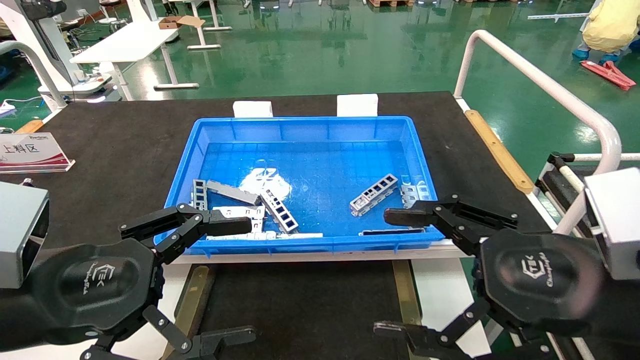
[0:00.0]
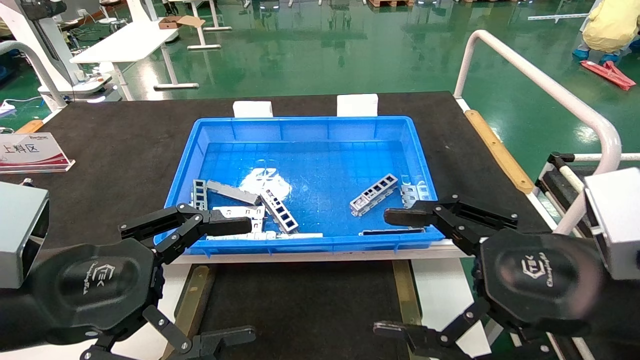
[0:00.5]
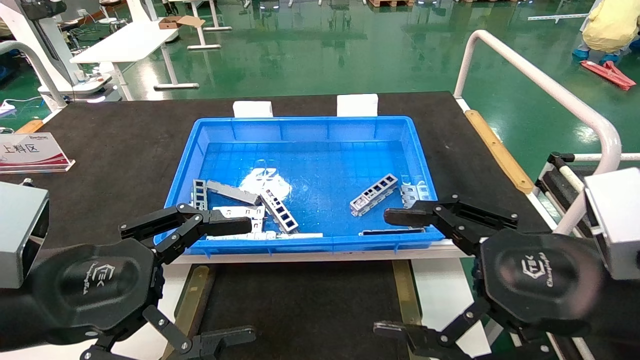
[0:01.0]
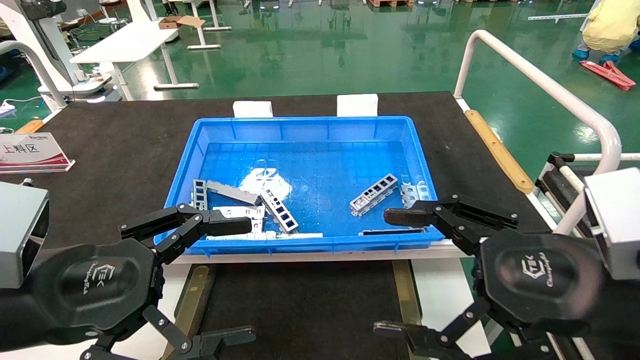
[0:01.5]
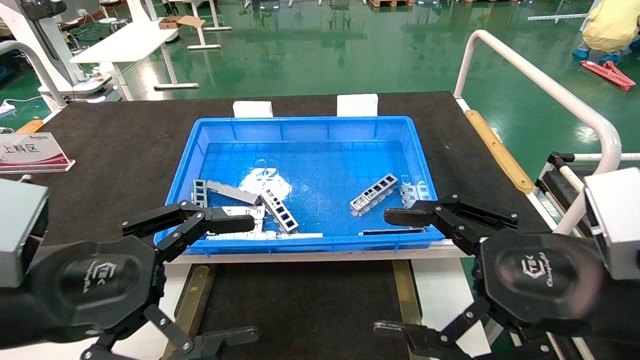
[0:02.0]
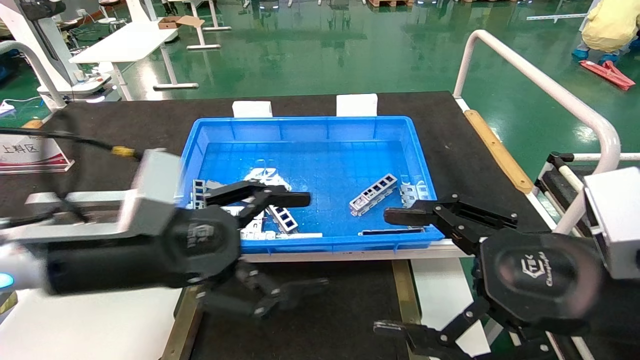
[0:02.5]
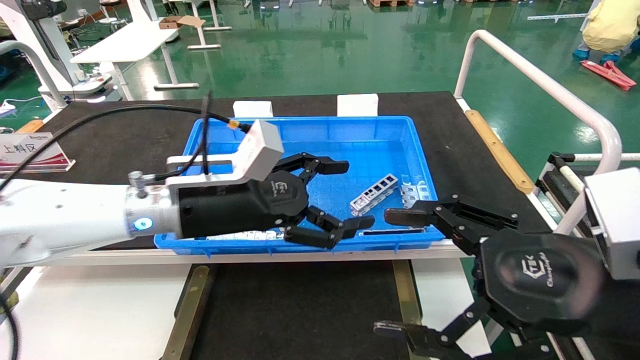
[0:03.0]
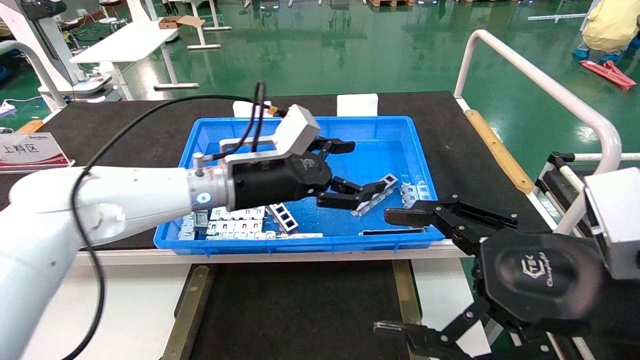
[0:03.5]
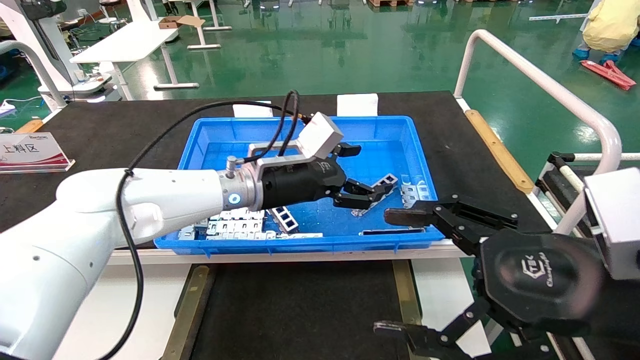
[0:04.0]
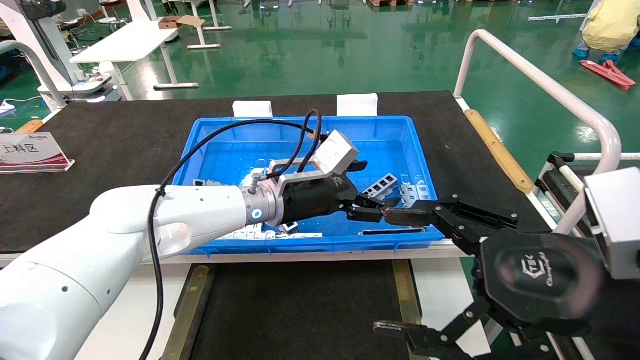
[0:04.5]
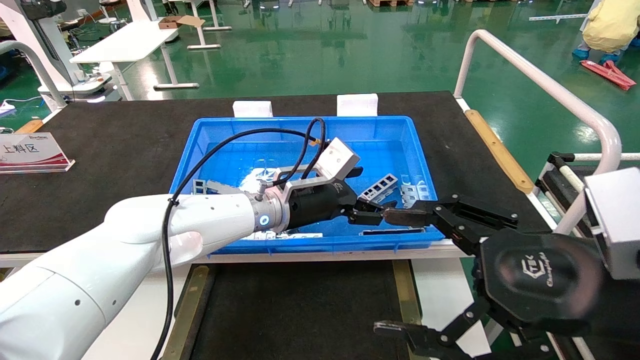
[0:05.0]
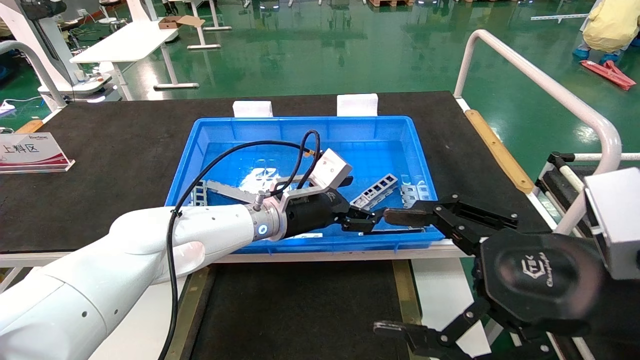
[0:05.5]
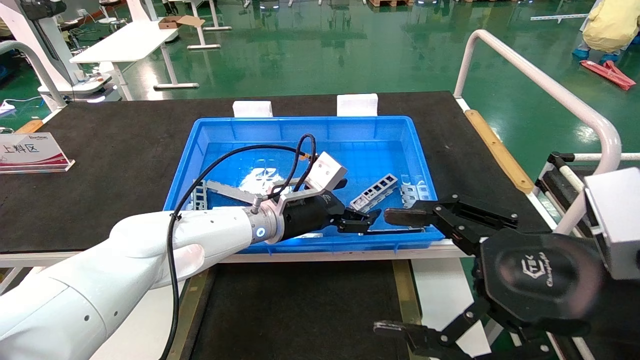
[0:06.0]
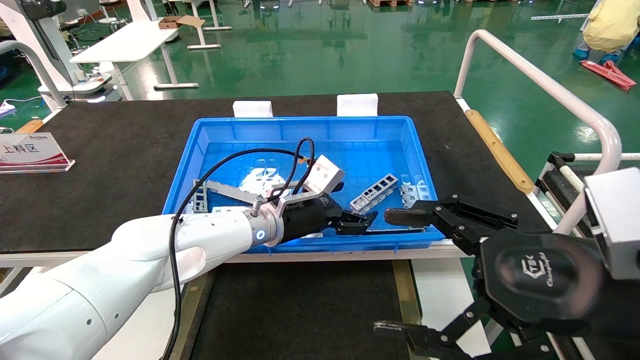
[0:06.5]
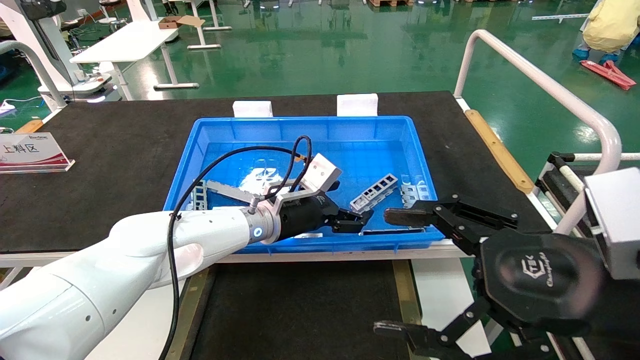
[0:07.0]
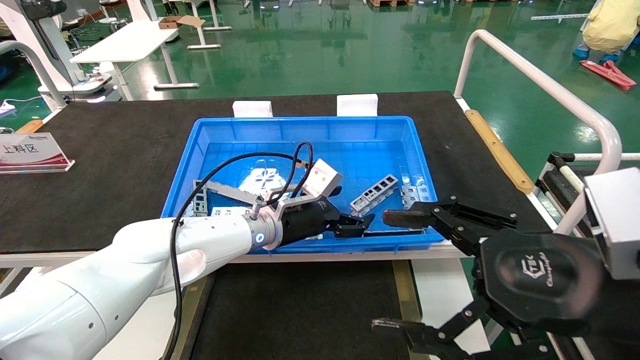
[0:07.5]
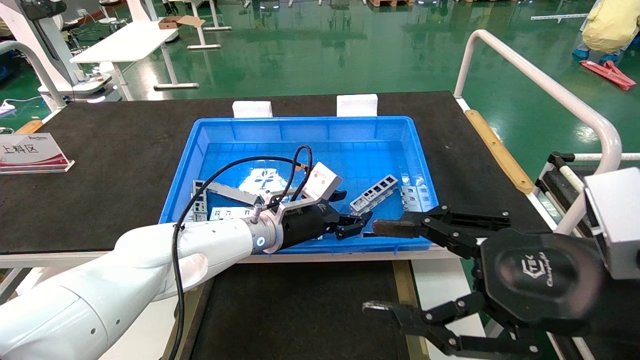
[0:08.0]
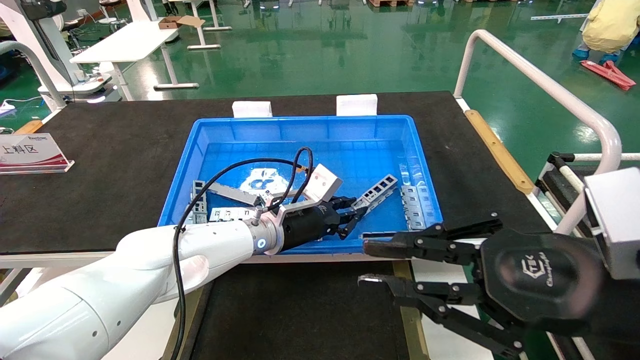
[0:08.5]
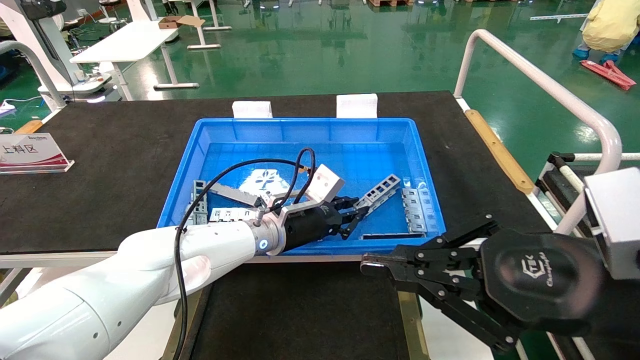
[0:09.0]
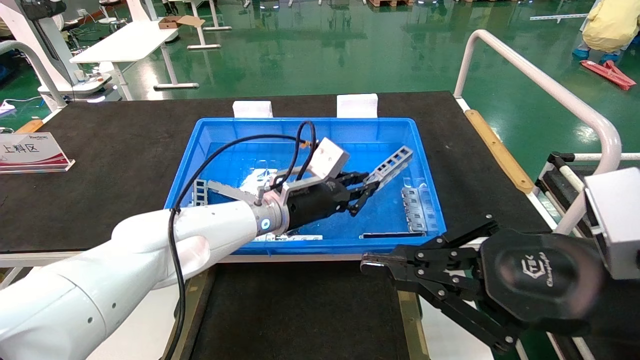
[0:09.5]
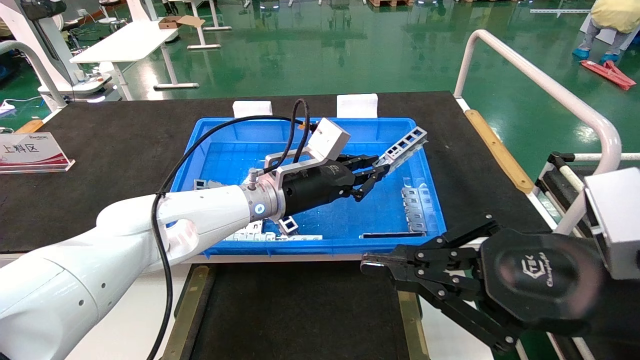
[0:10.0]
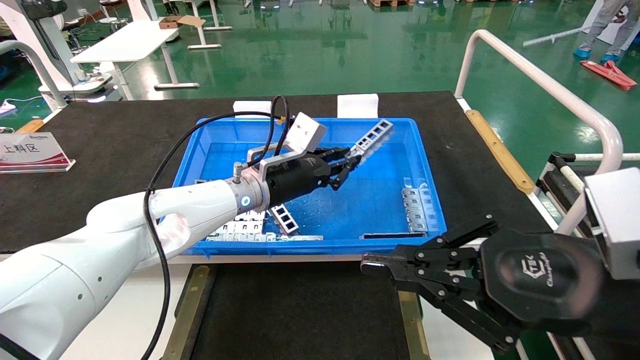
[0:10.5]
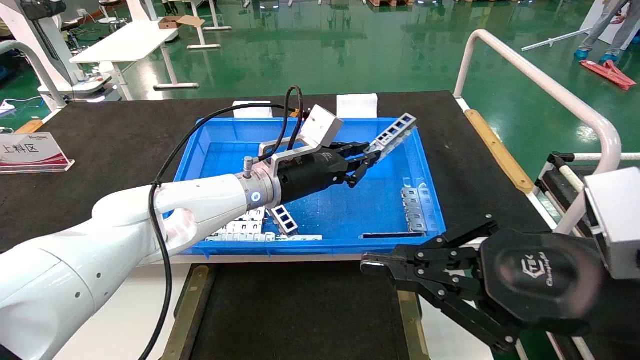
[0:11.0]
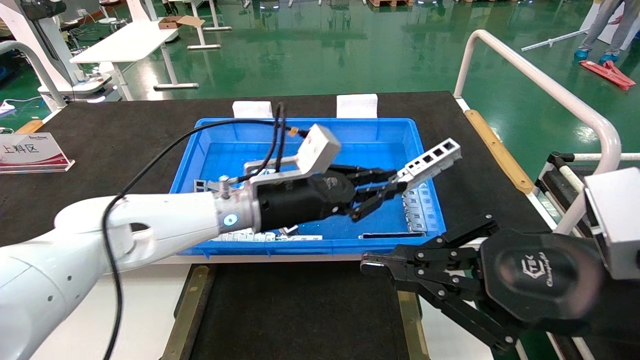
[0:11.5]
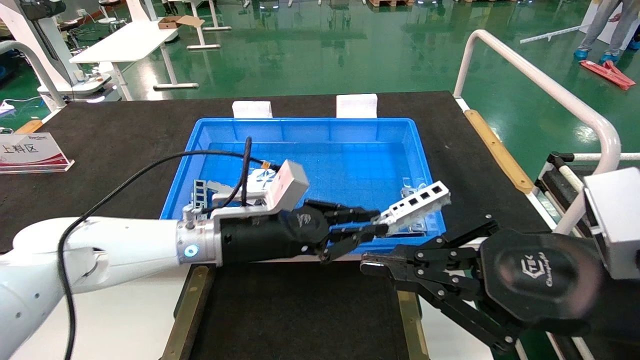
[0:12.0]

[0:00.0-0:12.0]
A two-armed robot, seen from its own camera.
Task of the whole recording: Grasp the part with one hand and place it on the black container.
Step, 0:02.0 to 0:08.5: Pick up the front USB bracket from the feeding area.
0:00.0 to 0:02.0: The two grippers keep their place.
0:02.0 to 0:04.0: The left gripper is displaced forward and to the right by about 30 cm.
0:04.0 to 0:06.0: The left gripper heads downward, covering about 5 cm.
0:06.0 to 0:08.0: There are only small adjustments of the grippers.
0:08.0 to 0:10.0: The left gripper shifts approximately 5 cm upward, and closes its fingers. The right gripper closes its fingers.
0:10.0 to 0:12.0: The left gripper is displaced backward and to the left by approximately 10 cm.

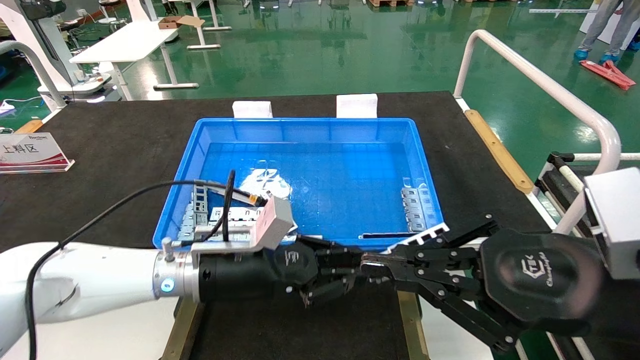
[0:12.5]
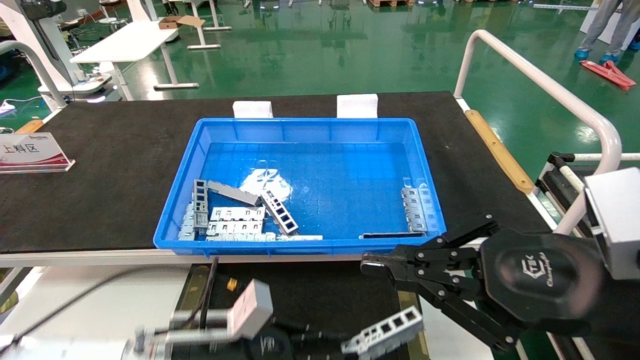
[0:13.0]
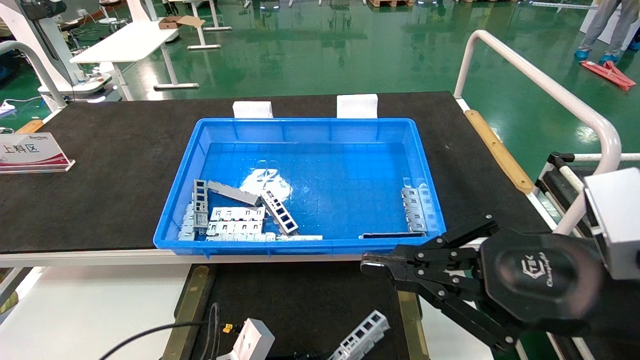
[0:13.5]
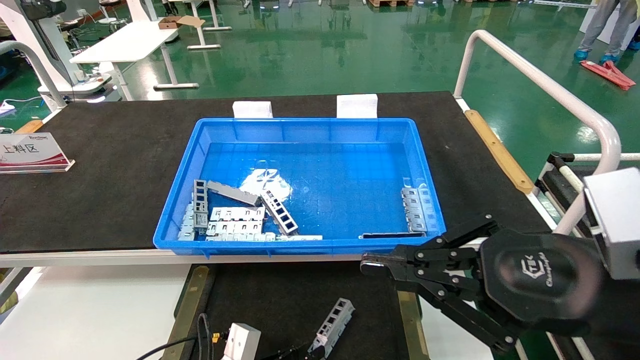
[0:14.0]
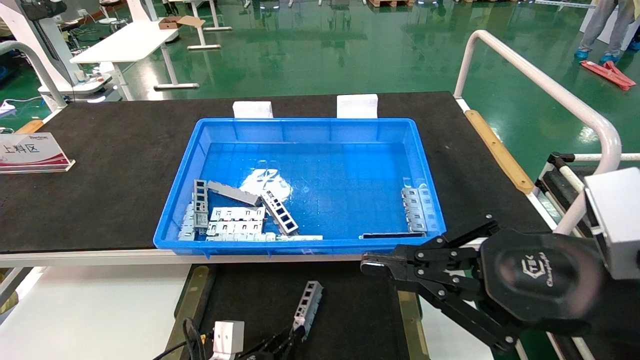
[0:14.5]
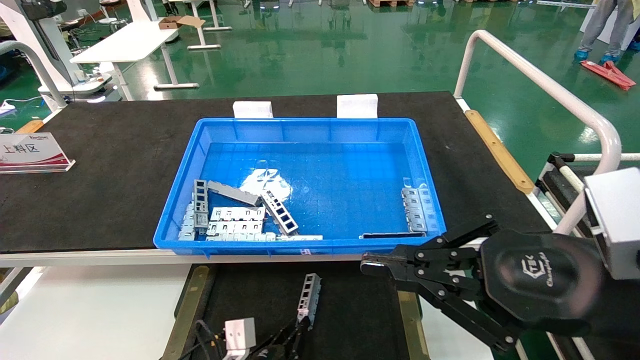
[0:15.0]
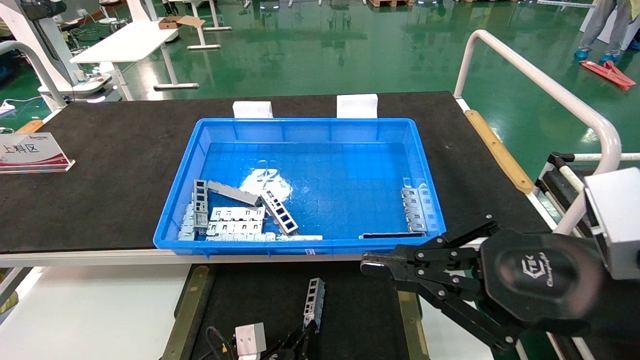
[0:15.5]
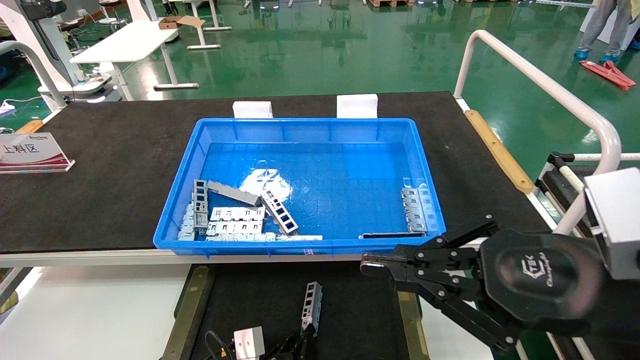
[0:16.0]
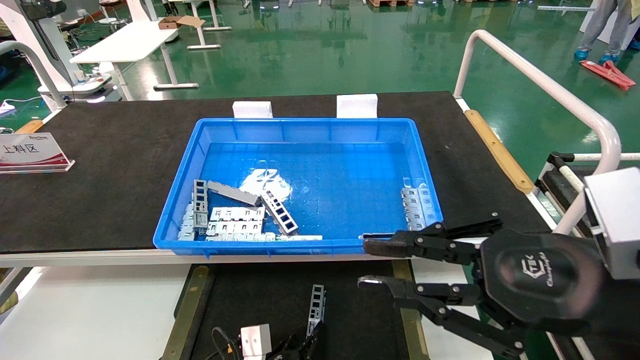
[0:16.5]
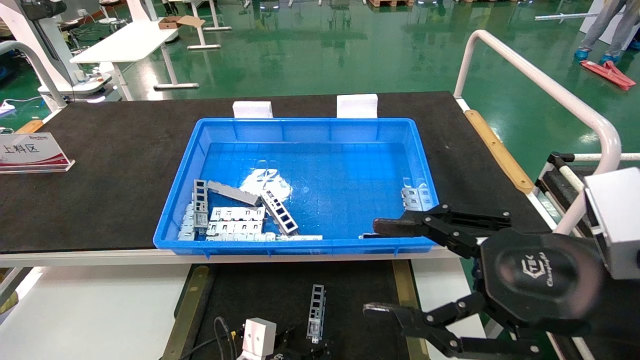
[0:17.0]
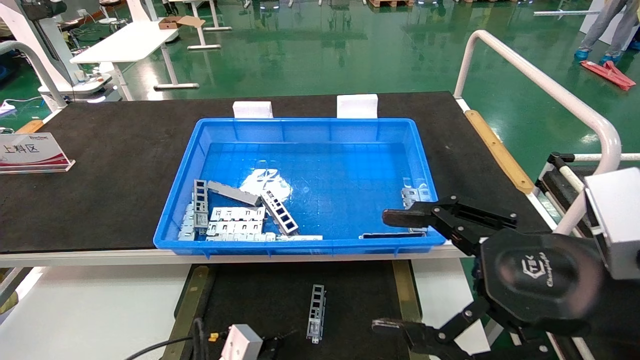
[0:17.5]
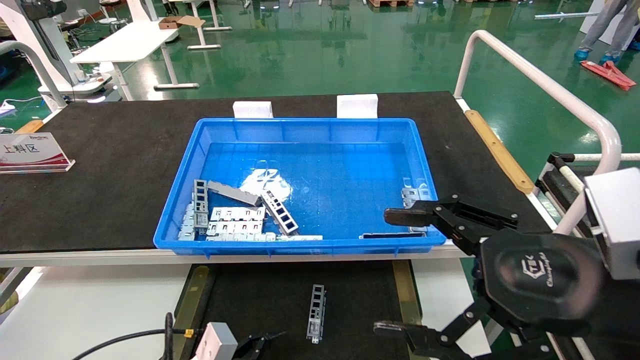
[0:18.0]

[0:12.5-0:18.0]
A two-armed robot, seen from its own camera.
Task of the whole recording: Grasp the part with one hand and place it on the black container.
Step, 0:12.5 to 0:16.0: Place the front USB bracket into the box.
0:12.5 to 0:14.5: The left gripper goes roughly 25 cm downward.
0:14.5 to 0:16.0: The left gripper changes place by roughly 5 cm.
0:16.0 to 0:18.0: The right gripper opens up. Meanwhile the left gripper goes approximately 15 cm upward, to the left and backward, and opens.

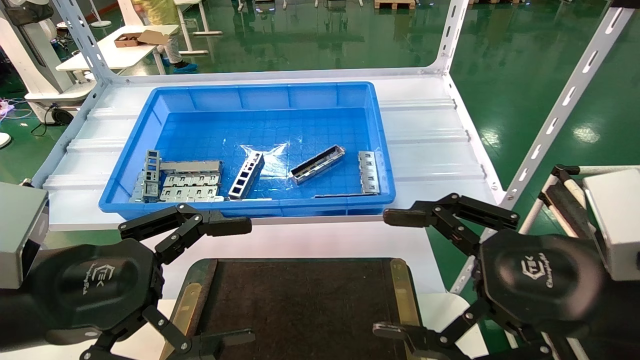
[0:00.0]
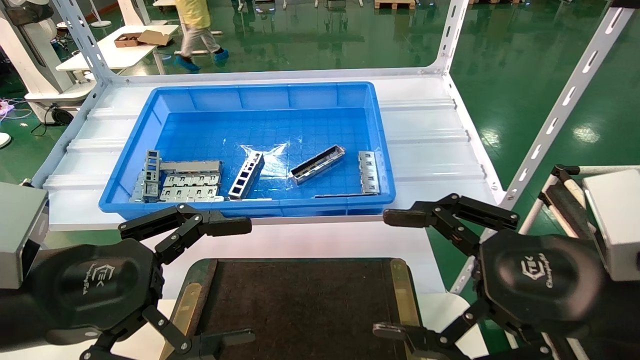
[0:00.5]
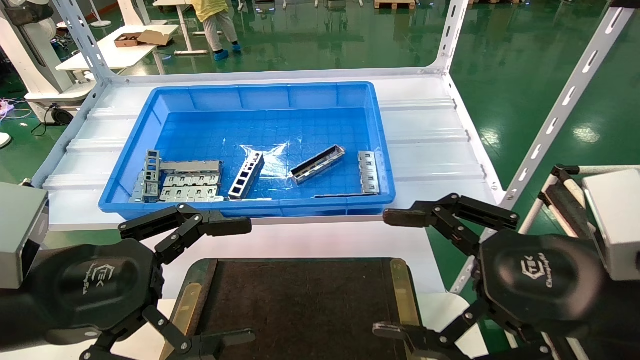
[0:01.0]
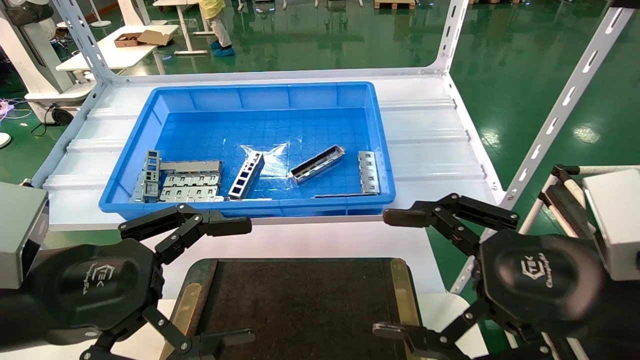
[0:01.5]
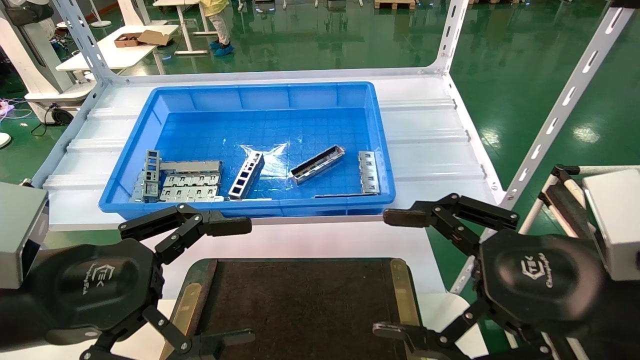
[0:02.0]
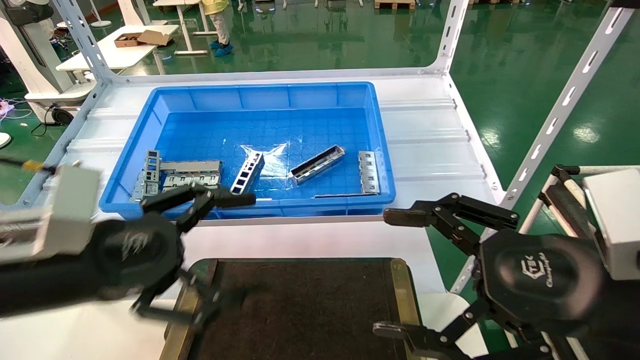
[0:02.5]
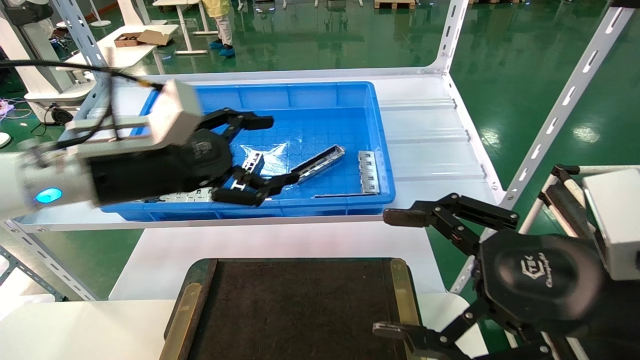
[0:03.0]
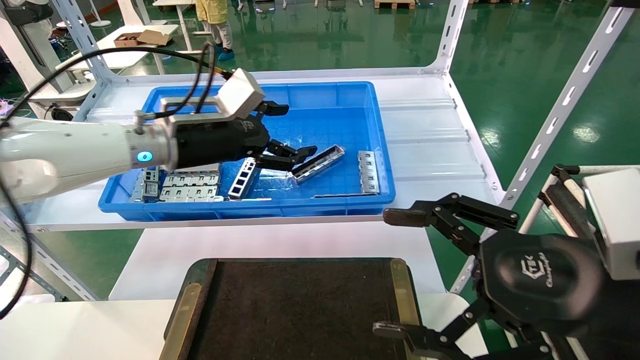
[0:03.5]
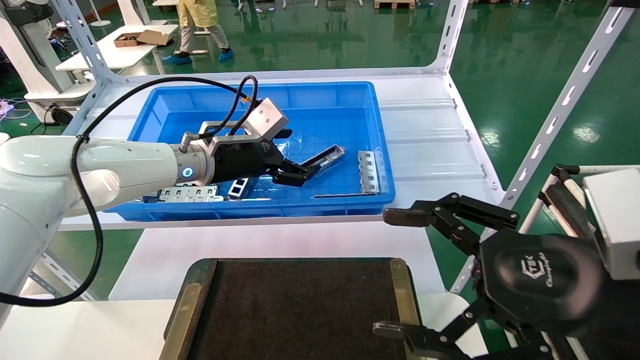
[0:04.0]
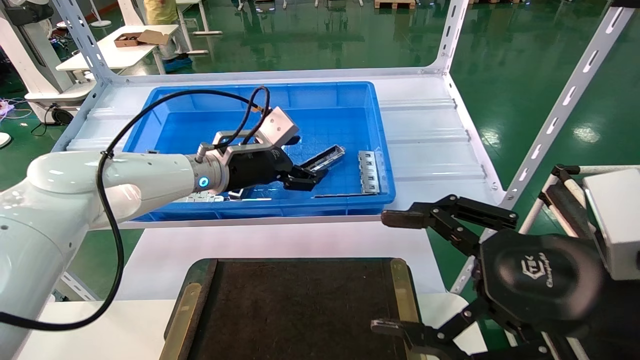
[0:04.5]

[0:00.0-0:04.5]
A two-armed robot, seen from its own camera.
Task of the whole recording: Grasp the part with one hand and place it on the black container.
0:00.0 to 0:02.0: Both grippers stay about where they are.
0:02.0 to 0:04.5: The left gripper is displaced forward by roughly 30 cm.
